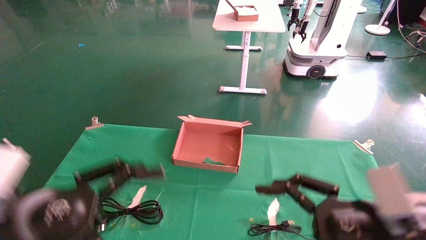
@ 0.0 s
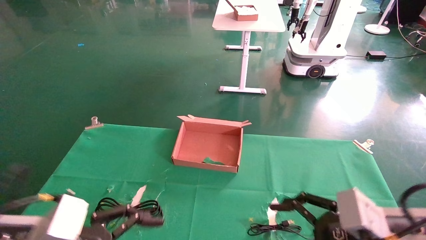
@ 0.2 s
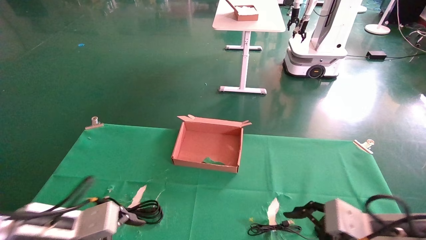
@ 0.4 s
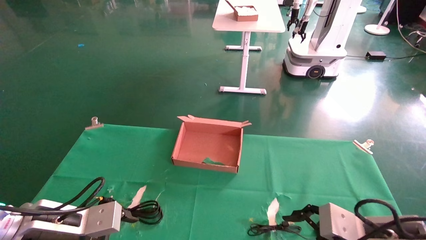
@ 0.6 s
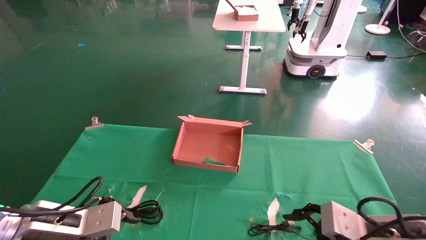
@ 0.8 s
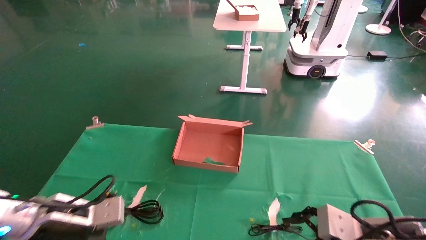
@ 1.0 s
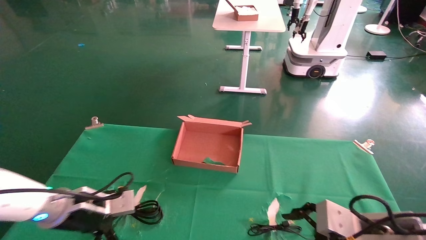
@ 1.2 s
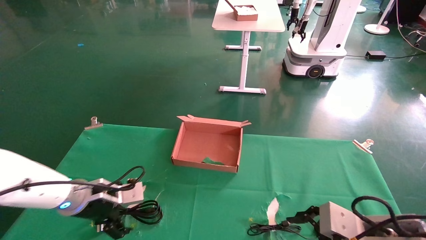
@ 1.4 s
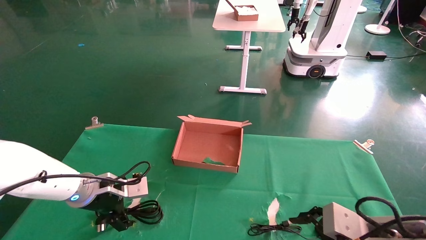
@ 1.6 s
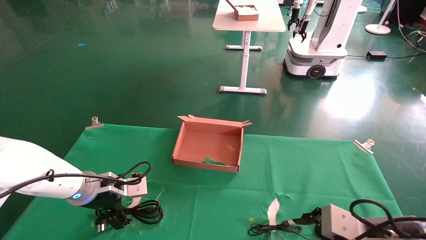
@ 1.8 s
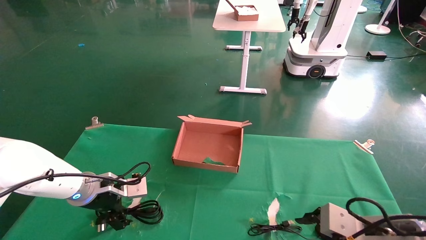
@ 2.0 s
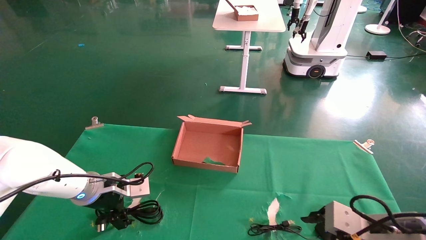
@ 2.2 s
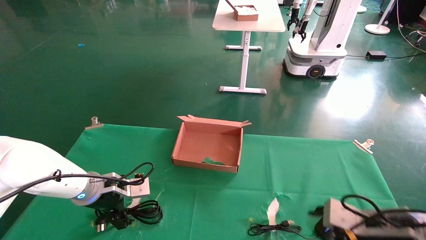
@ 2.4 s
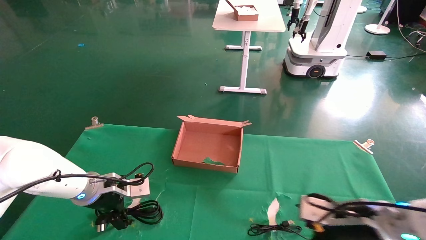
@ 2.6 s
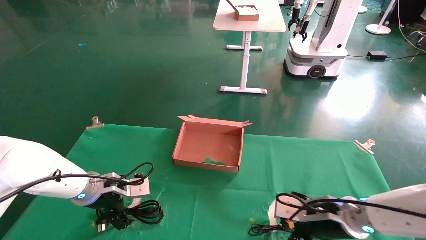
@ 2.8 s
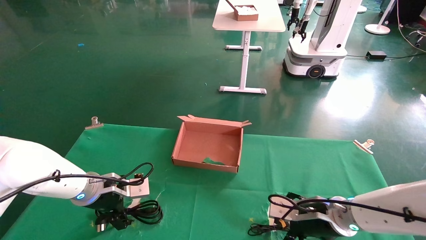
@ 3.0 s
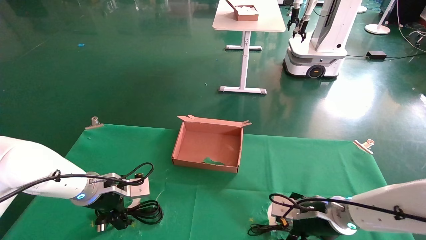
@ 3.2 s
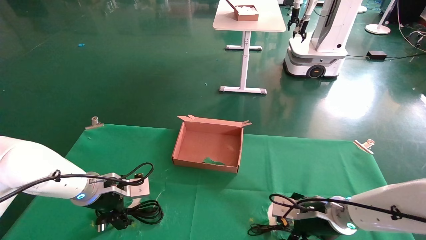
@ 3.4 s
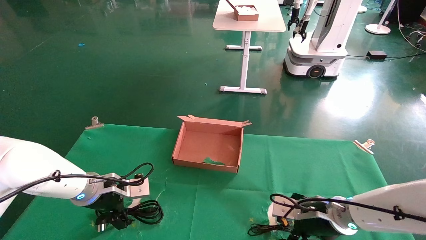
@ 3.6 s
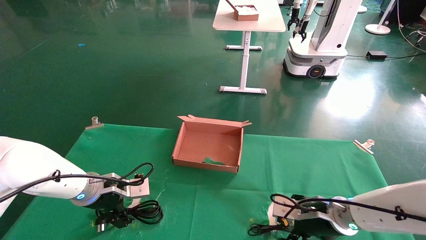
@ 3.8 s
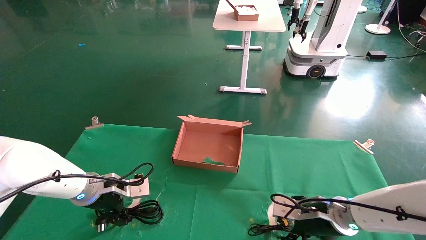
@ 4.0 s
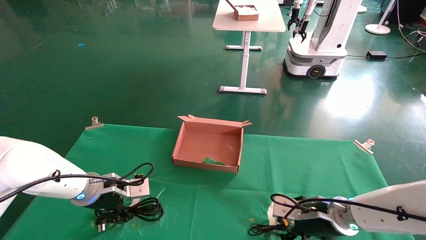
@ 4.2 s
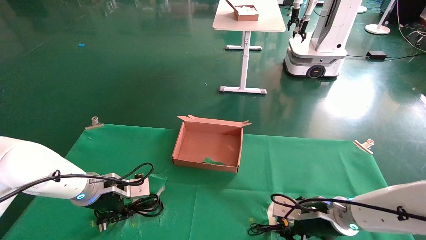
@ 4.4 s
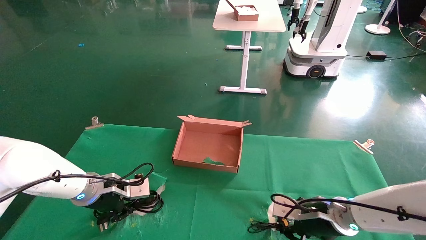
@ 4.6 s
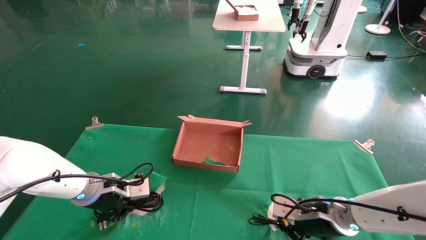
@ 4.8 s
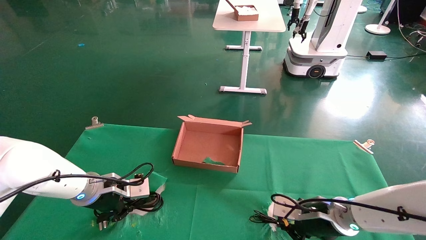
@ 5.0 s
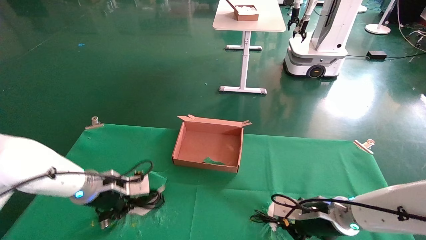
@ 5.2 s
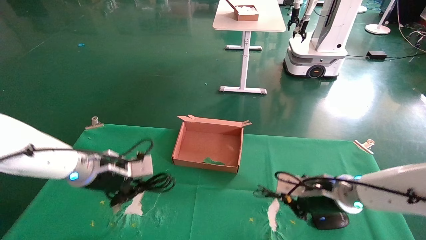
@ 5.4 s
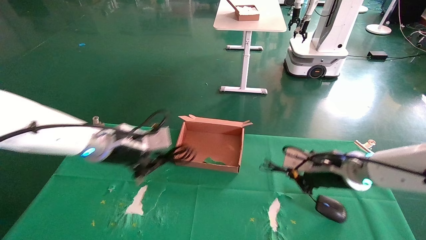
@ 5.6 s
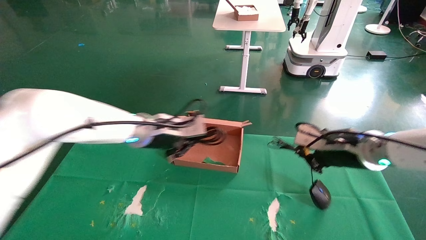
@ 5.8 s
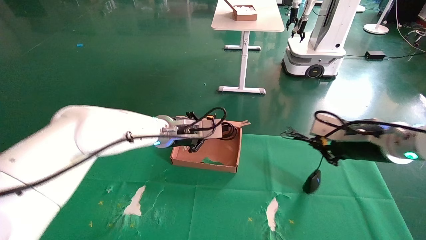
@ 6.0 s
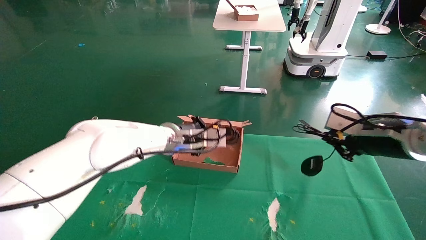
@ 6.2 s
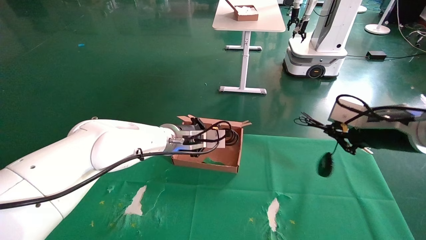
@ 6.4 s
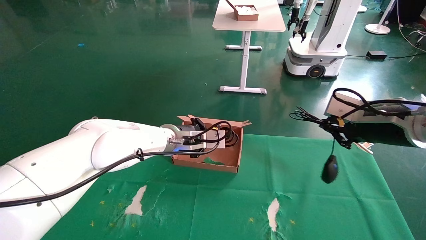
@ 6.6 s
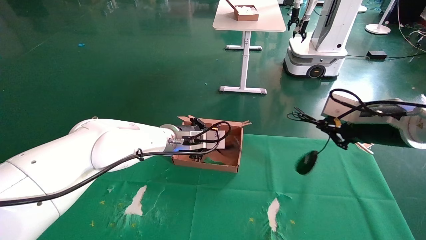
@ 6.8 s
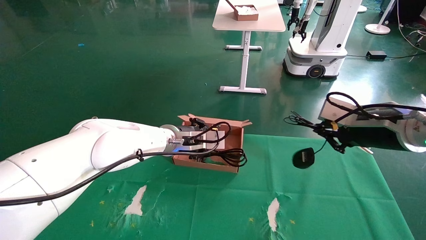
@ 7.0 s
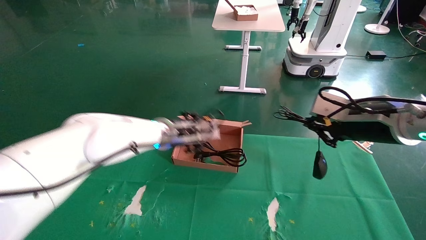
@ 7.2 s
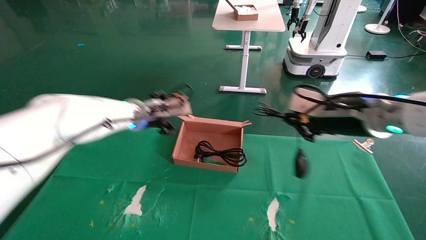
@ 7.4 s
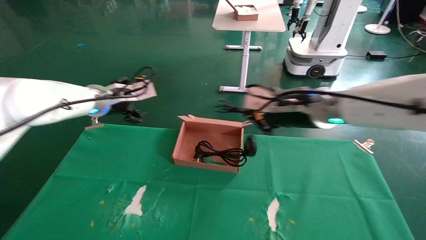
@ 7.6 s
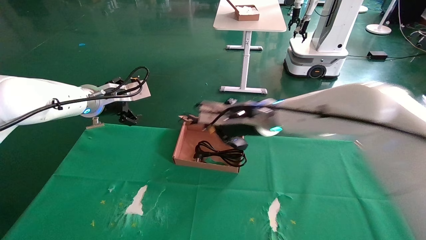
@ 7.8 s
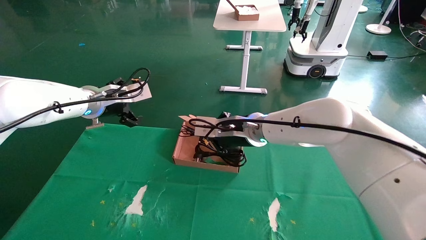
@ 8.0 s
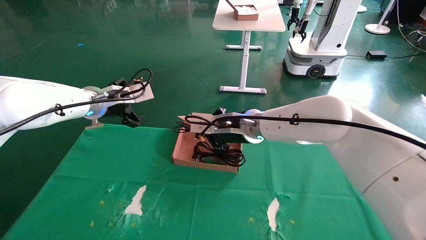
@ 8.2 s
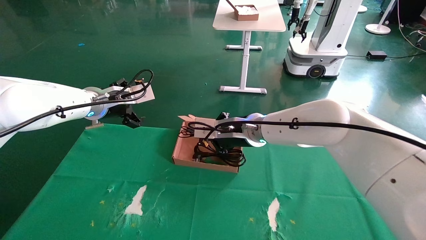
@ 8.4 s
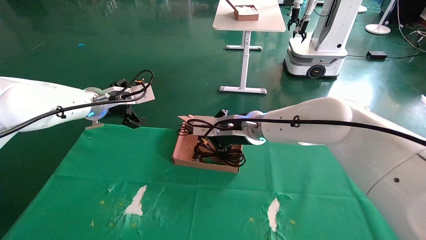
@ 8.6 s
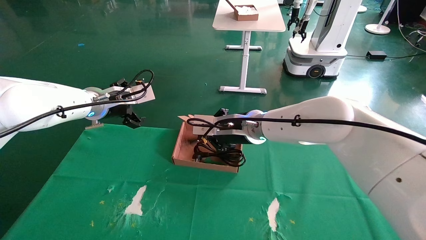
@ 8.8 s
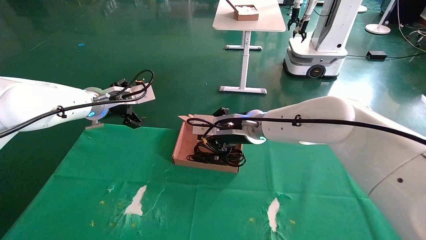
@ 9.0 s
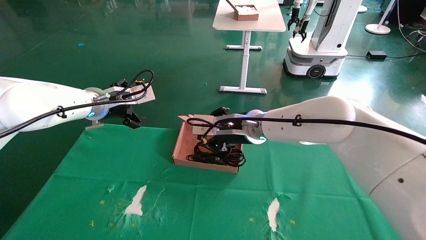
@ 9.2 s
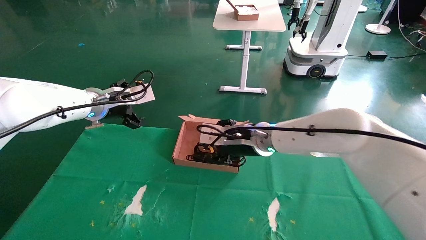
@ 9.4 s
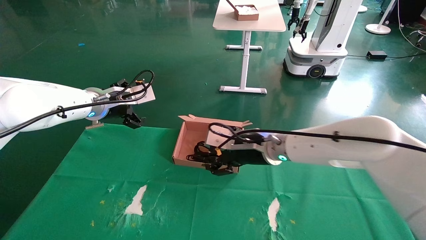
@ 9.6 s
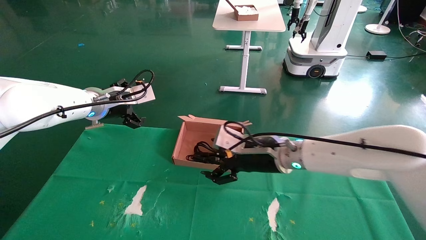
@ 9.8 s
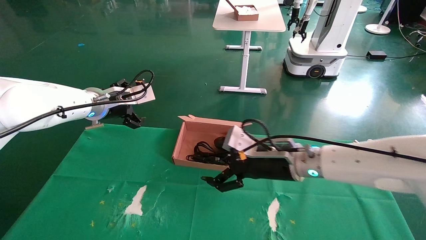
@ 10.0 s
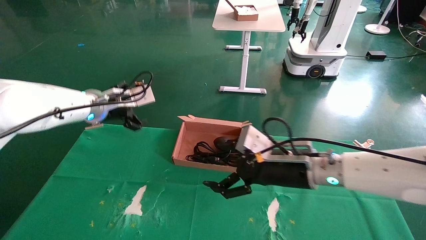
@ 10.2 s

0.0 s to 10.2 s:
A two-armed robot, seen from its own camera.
Step, 0.2 to 4.4 s: Grab and lift both the mouse and power cord from the accessory packaging area at the same time.
0.0 to 1.4 s: The left gripper travels forward by some 20 cm. Meanwhile the right gripper moves downward, roughly 5 cm.
1.4 to 3.0 s: The right gripper heads forward, covering about 10 cm.
3.0 to 4.4 s: The right gripper closes up. The left gripper closes up.
4.4 to 5.8 s: The left gripper goes roughly 15 cm to the right and upward, and closes its fingers; the right gripper is displaced upward by approximately 15 cm, and closes.
5.8 to 7.2 s: The right gripper heads upward, covering roughly 5 cm; the left gripper opens its fingers.
7.2 to 8.8 s: The right gripper heads to the left and forward, covering about 25 cm. Meanwhile the left gripper is displaced to the left and upward by approximately 15 cm, and opens its fingers.
8.8 to 10.2 s: The right gripper travels backward, to the right and downward by approximately 15 cm, and opens its fingers.

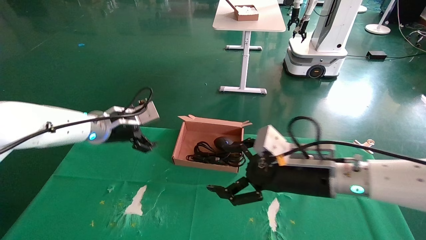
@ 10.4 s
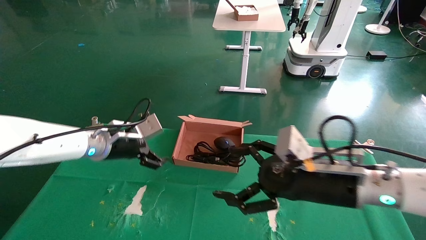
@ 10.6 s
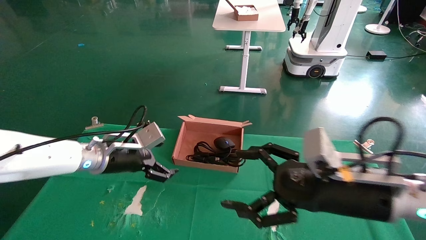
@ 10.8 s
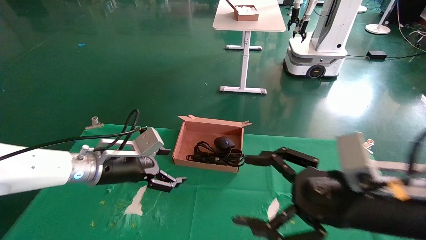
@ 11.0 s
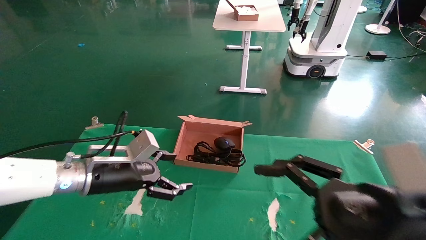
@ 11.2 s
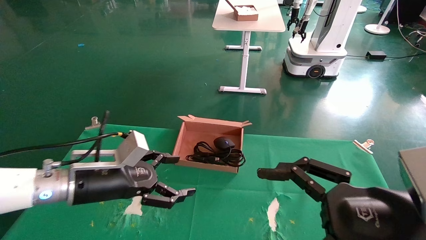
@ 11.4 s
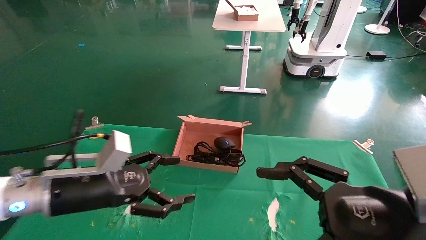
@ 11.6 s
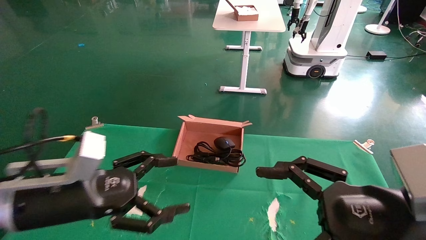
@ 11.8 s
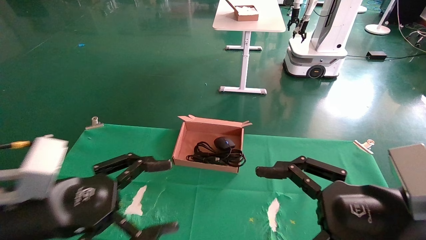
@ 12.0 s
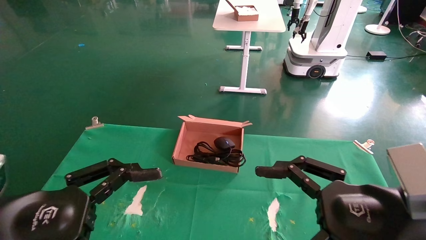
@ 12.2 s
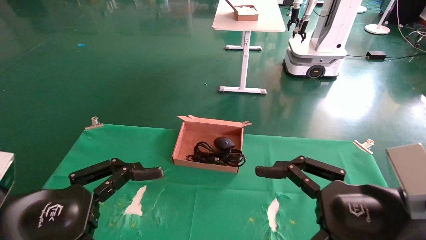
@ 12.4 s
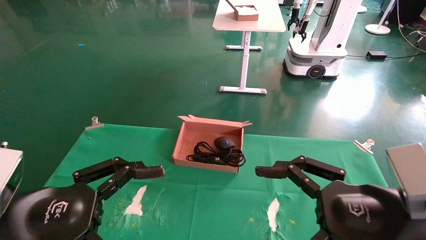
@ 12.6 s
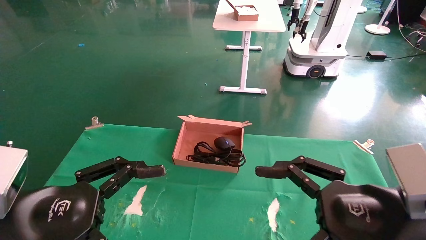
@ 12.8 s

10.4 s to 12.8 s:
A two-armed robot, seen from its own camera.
10.4 to 11.6 s: The left gripper is displaced backward by some 15 cm. Meanwhile the right gripper is displaced backward and to the right by approximately 15 cm.
11.6 to 12.8 s: The left gripper moves backward, some 10 cm.
